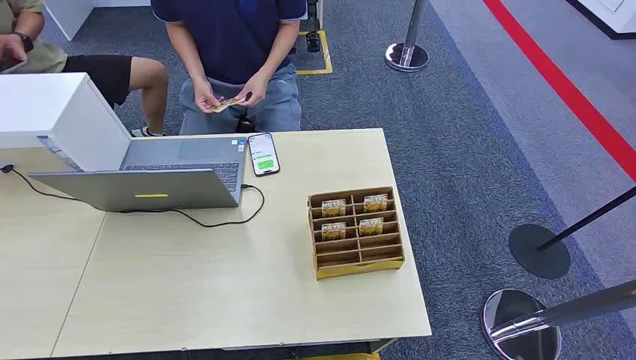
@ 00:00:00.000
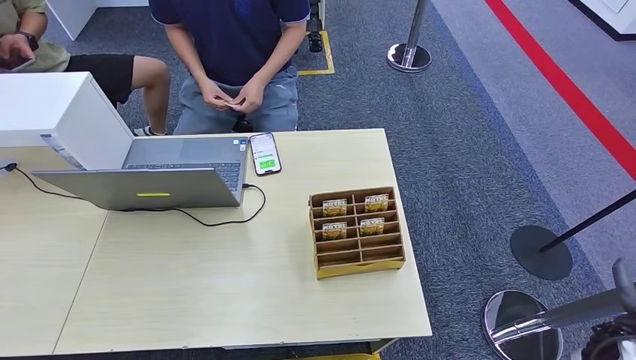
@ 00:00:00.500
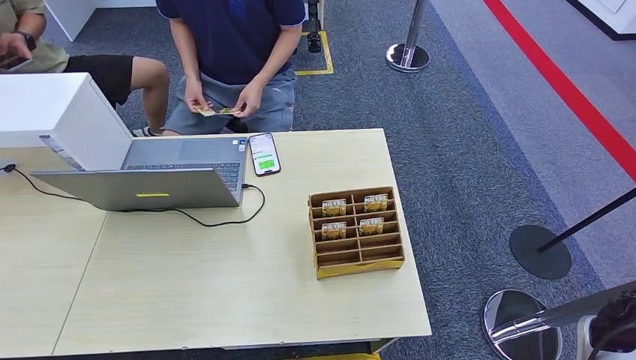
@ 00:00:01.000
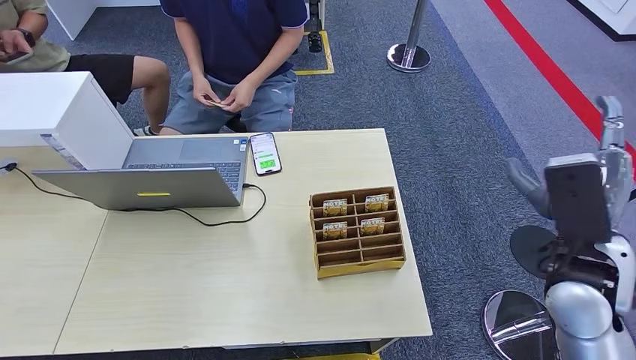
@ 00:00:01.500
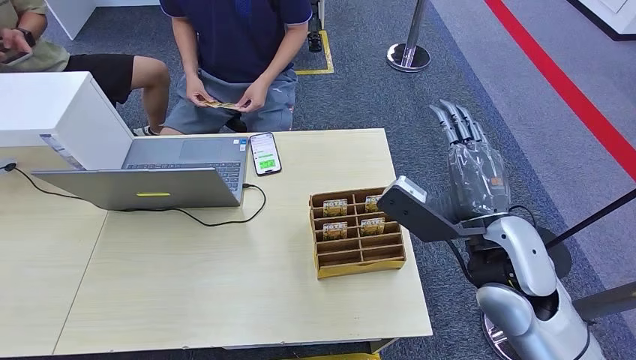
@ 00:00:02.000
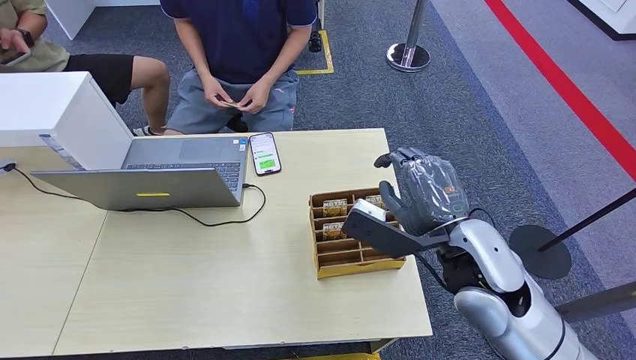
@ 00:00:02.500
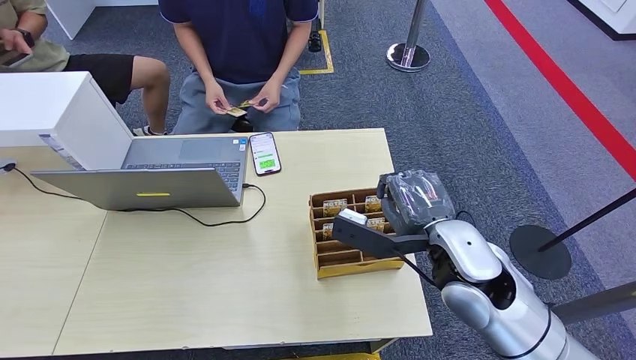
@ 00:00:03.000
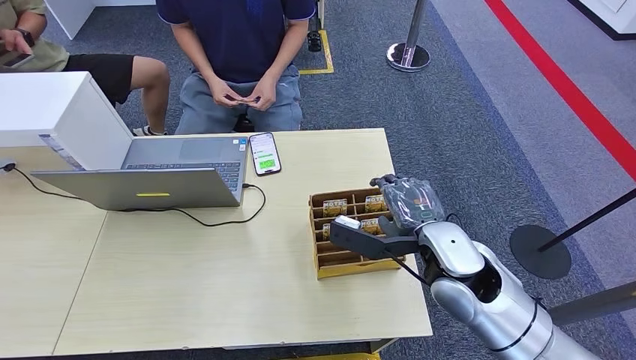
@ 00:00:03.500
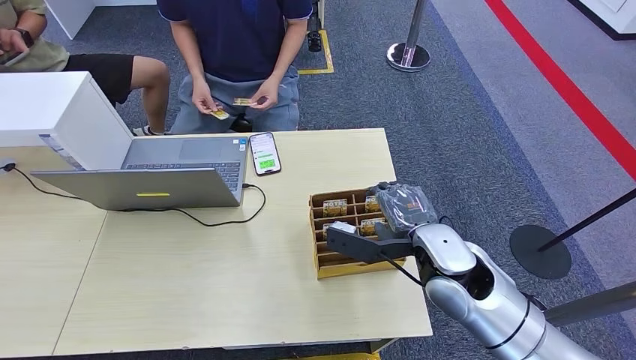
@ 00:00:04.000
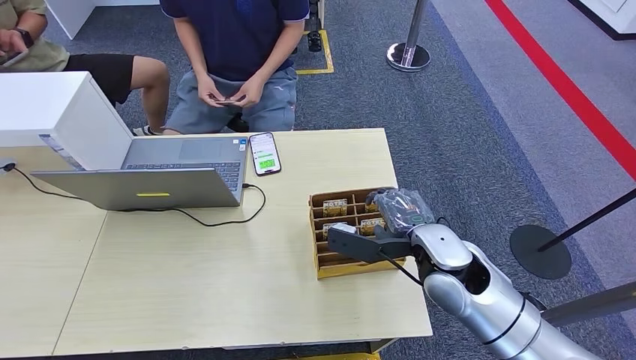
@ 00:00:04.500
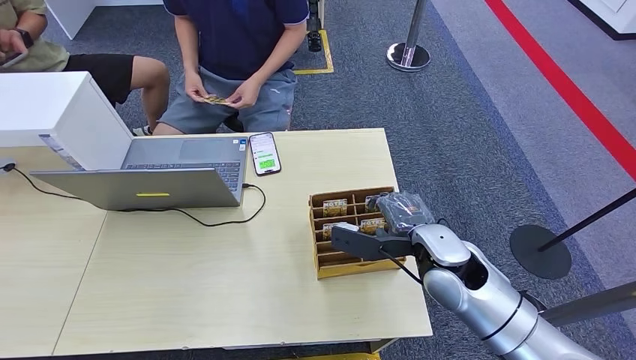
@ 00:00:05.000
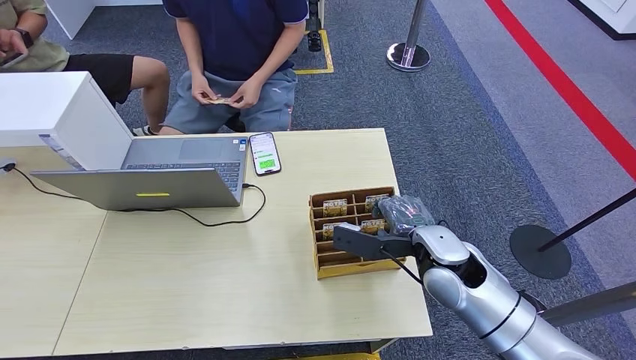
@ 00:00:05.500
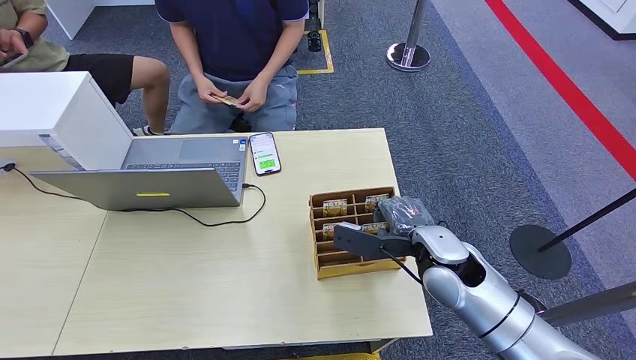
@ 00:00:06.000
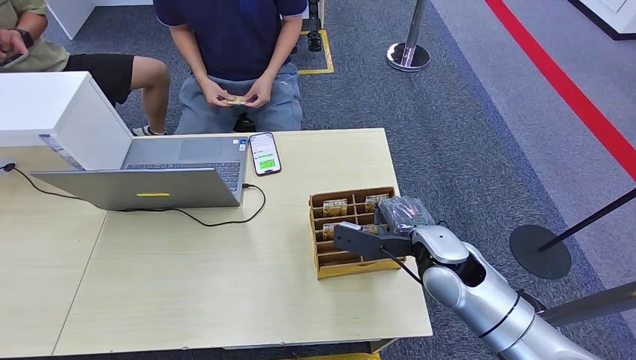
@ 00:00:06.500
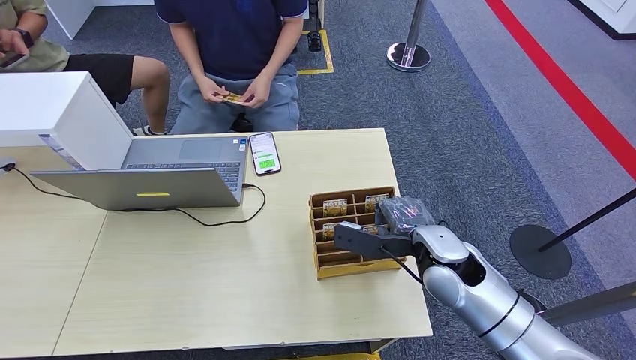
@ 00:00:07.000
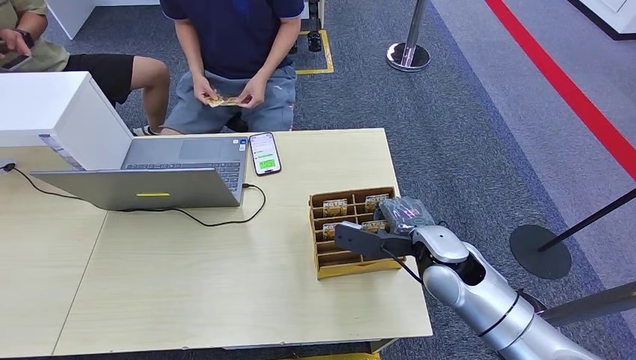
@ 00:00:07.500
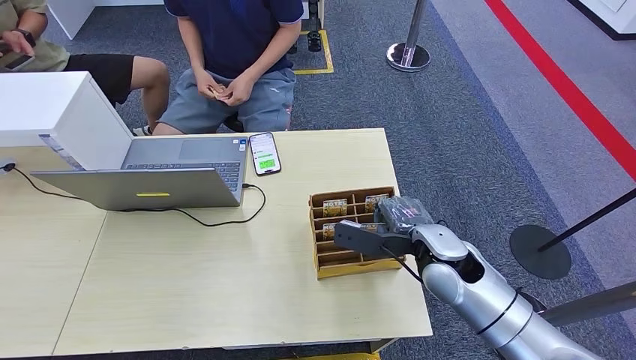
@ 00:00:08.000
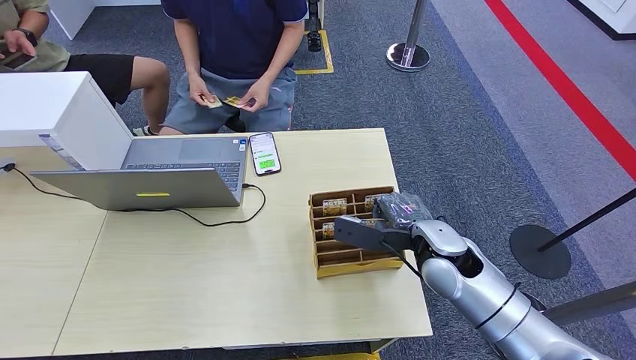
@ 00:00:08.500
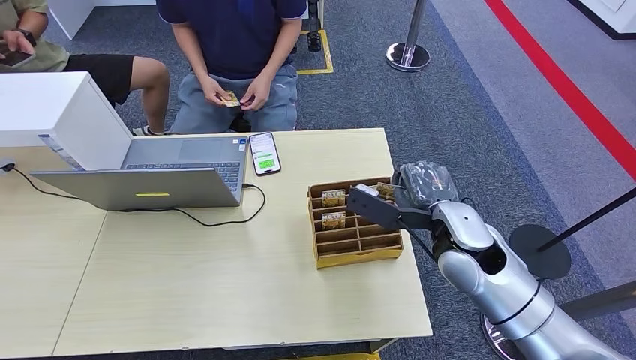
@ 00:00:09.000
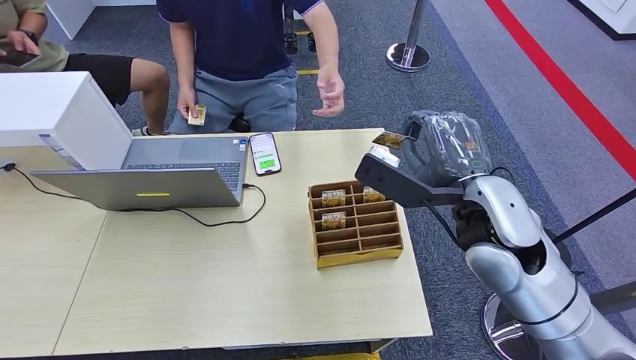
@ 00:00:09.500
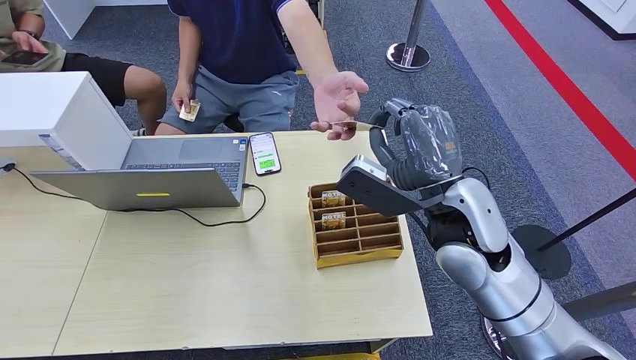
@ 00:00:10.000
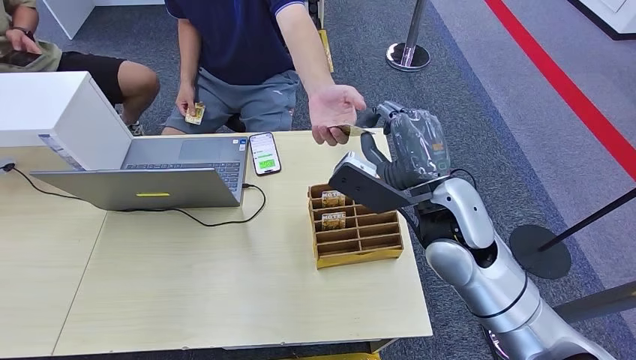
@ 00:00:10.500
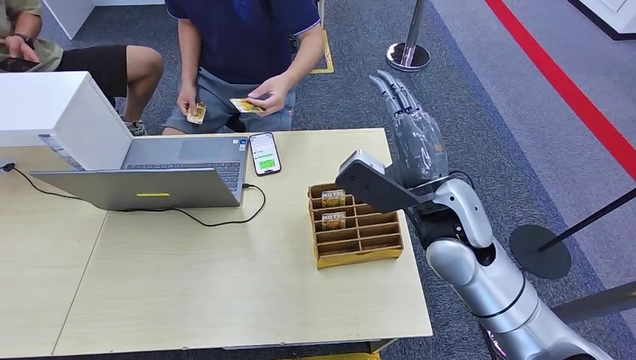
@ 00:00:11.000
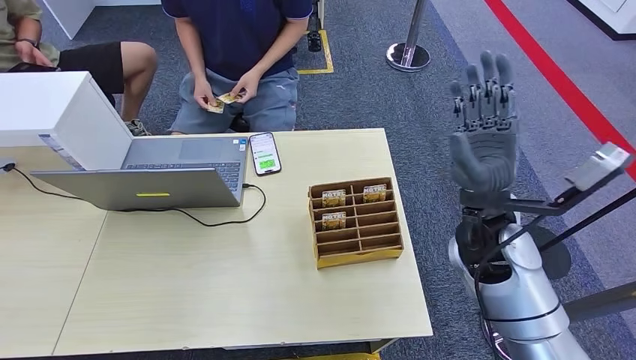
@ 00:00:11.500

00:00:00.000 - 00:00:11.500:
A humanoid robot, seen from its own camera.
Step, 00:00:00.000 - 00:00:09.000: Pick up the key card from the card box.
Step, 00:00:09.500 - 00:00:11.500: Hand the key card to the target.
00:00:02.000 - 00:00:04.000: The right hand goes about 5 cm downward.
00:00:04.000 - 00:00:06.000: There are only small adjustments of the hands.
00:00:06.000 - 00:00:07.500: Neither hand changes place.
00:00:07.500 - 00:00:09.500: The right hand travels upward by approximately 15 cm.
00:00:09.500 - 00:00:11.500: The right hand moves approximately 5 cm.
